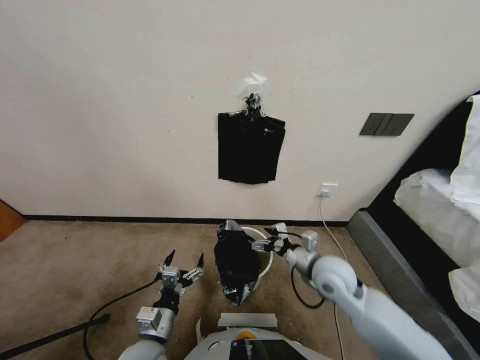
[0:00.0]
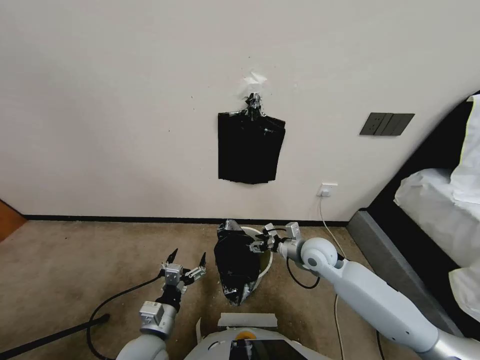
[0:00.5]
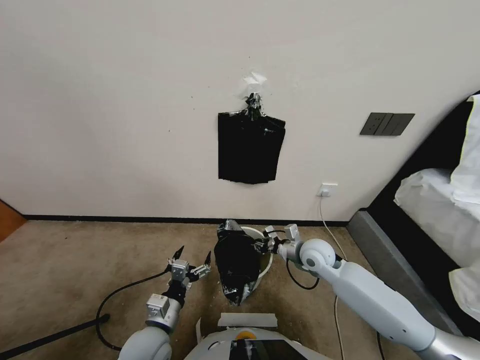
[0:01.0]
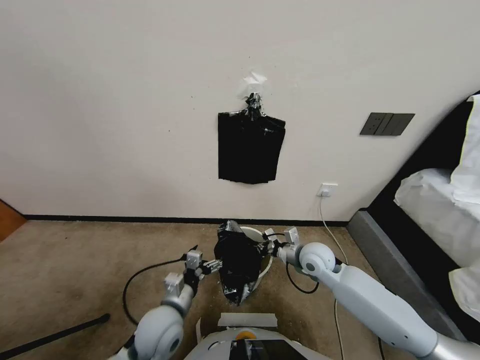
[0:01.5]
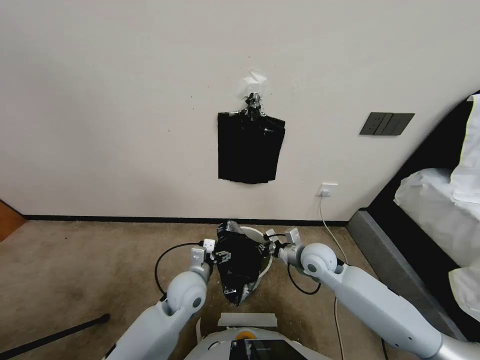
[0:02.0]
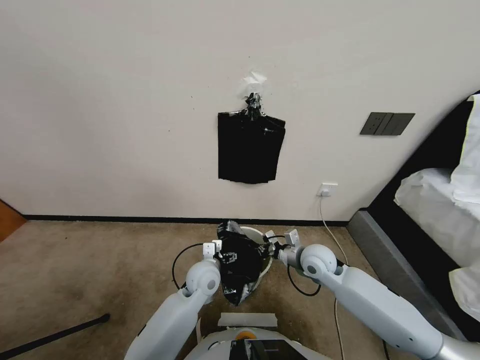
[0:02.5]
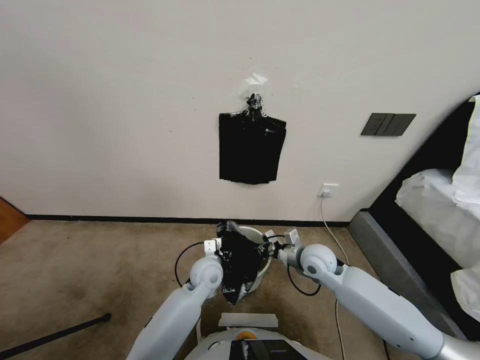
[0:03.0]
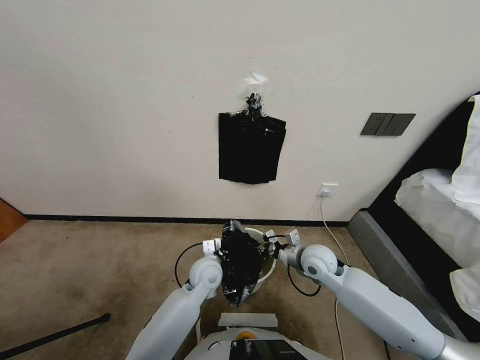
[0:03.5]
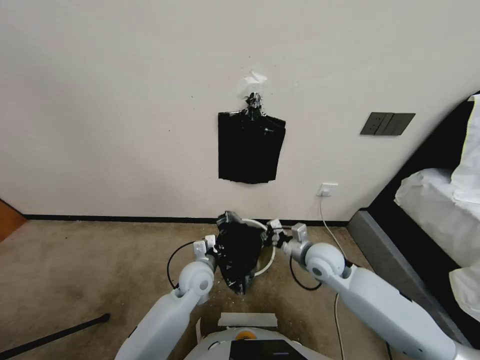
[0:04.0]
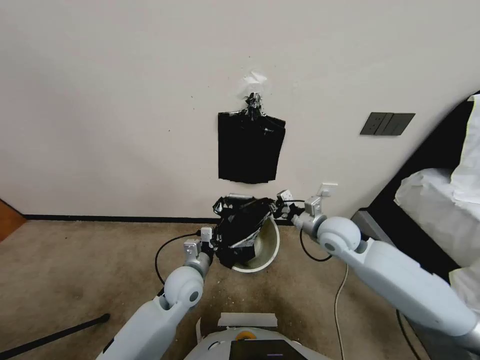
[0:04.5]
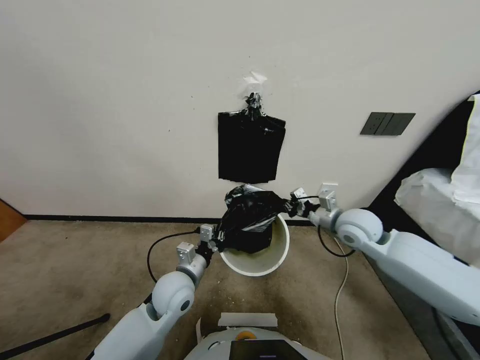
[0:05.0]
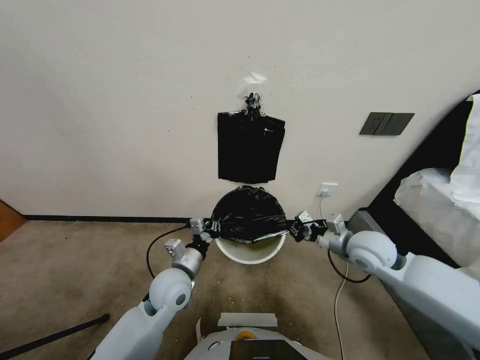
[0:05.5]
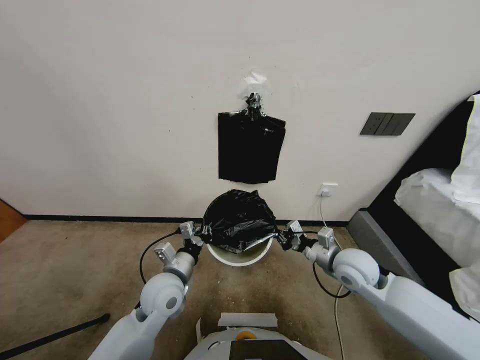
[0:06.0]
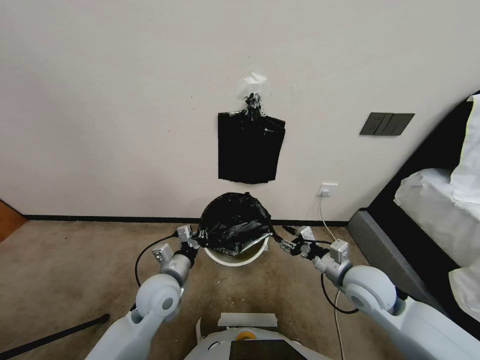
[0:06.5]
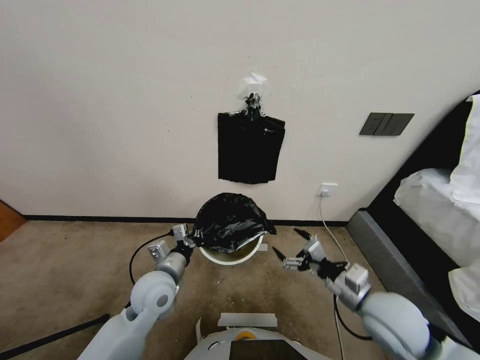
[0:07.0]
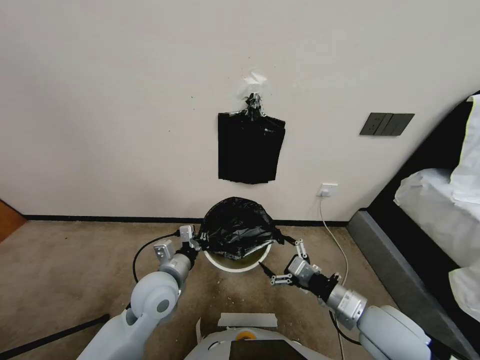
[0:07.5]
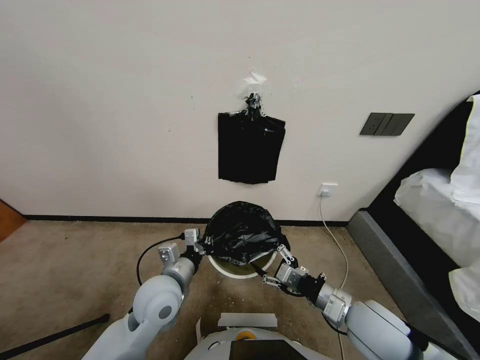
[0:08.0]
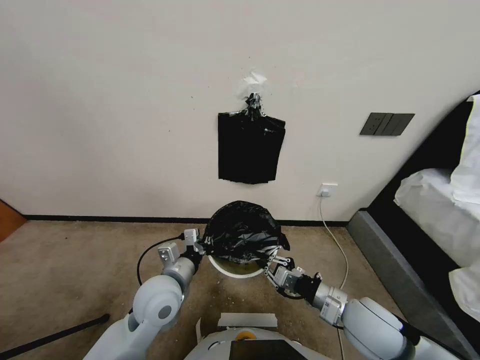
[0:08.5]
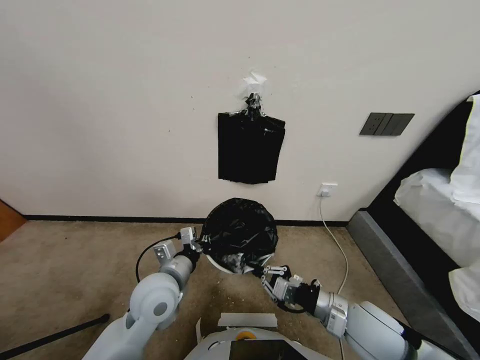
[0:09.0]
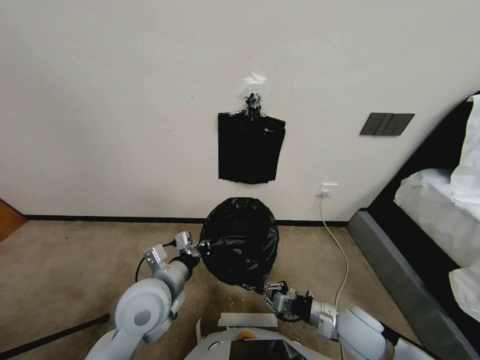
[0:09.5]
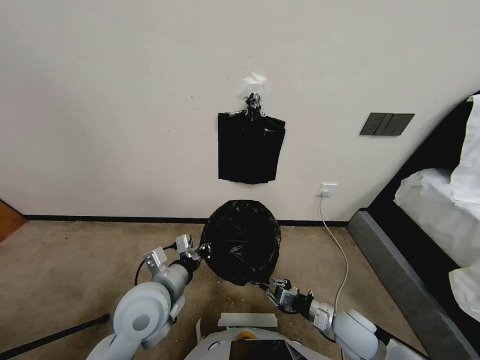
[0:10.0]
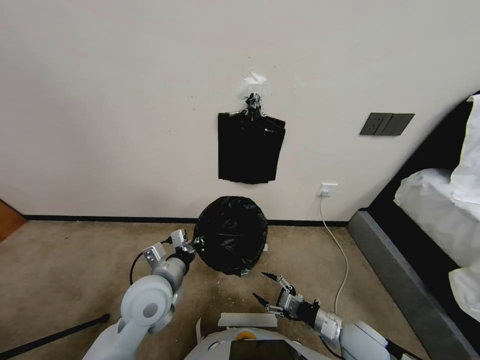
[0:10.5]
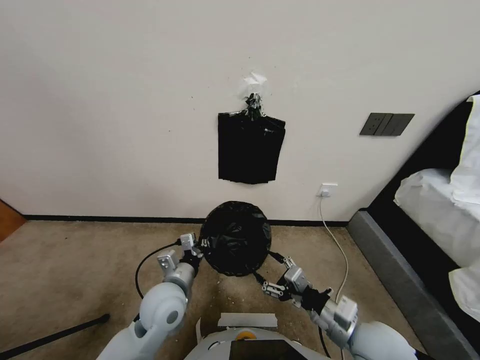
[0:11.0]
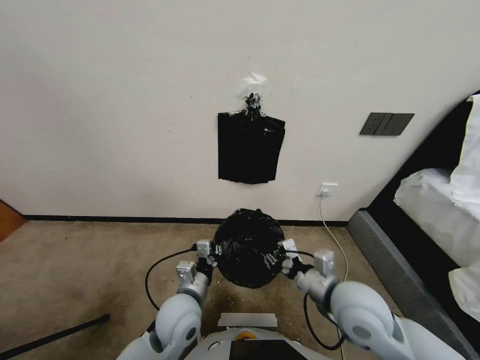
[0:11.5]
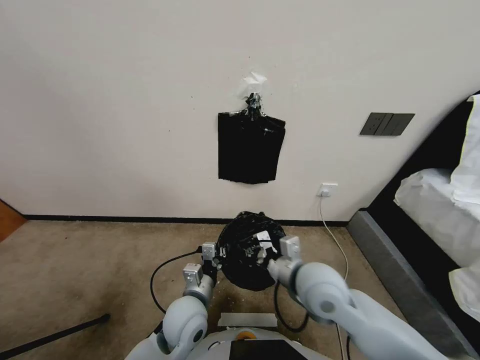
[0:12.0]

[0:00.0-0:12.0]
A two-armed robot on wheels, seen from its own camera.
Task of the whole recording: Place a trash bag onto the trash bin.
0:00.0 to 0:02.0: The left gripper heads forward and to the right, covering approximately 20 cm. Meanwhile the right gripper changes place by roughly 5 cm, and closes.
0:02.0 to 0:04.0: The left gripper closes up.
0:04.0 to 0:06.0: The left gripper heads to the left, covering some 5 cm; the right gripper heads to the right and backward, covering roughly 5 cm.
0:06.0 to 0:08.0: The right gripper heads backward, covering approximately 10 cm, and opens its fingers.
0:08.0 to 0:10.0: The right gripper shifts approximately 10 cm downward.
0:10.0 to 0:12.0: The left gripper shifts roughly 10 cm downward and to the right, while the right gripper is displaced upward, to the left and forward by about 25 cm, and opens and closes again.

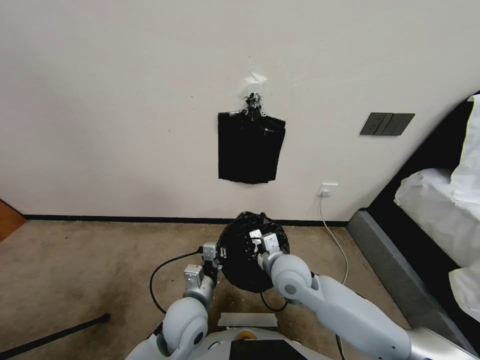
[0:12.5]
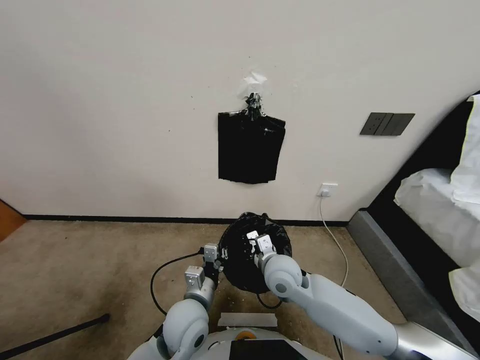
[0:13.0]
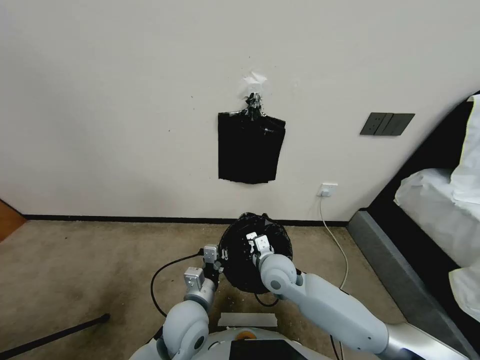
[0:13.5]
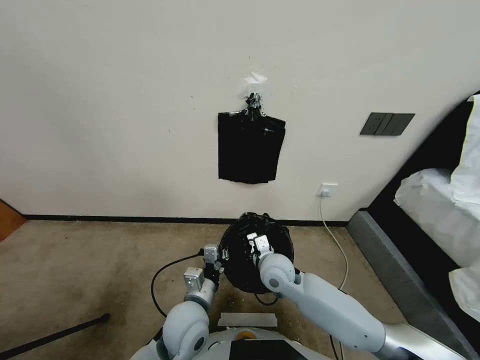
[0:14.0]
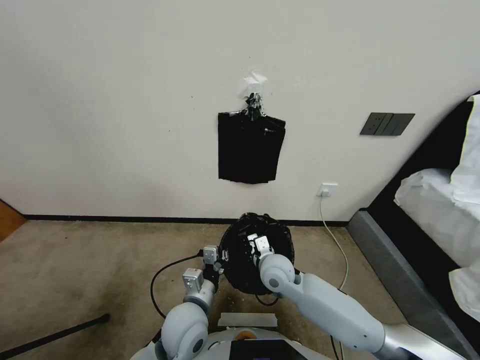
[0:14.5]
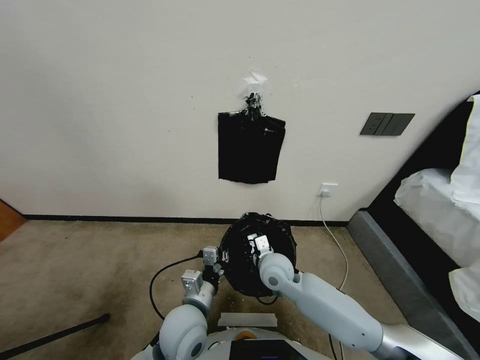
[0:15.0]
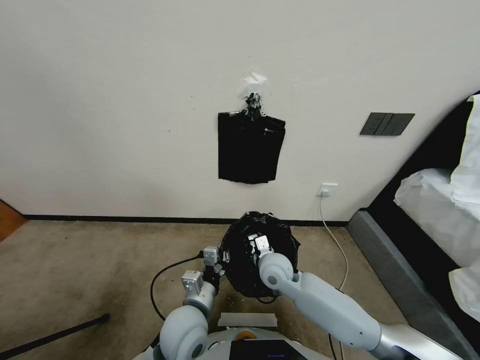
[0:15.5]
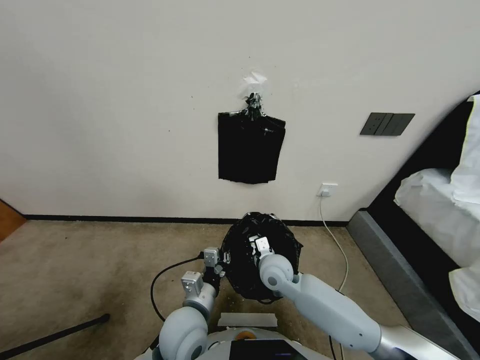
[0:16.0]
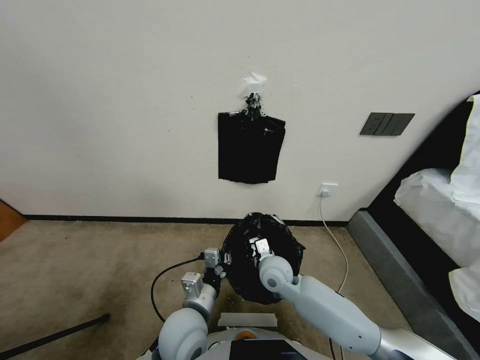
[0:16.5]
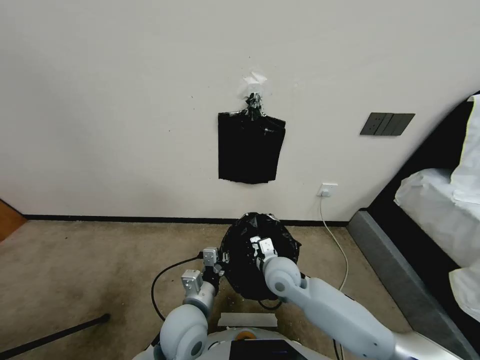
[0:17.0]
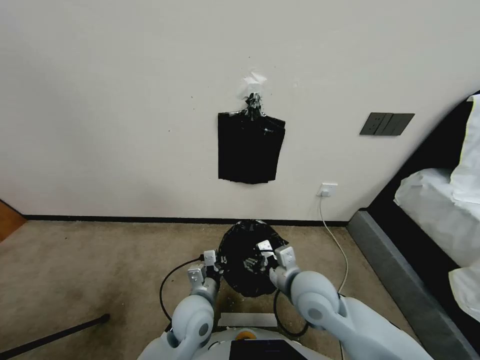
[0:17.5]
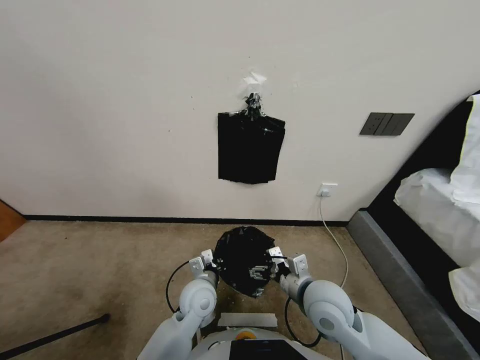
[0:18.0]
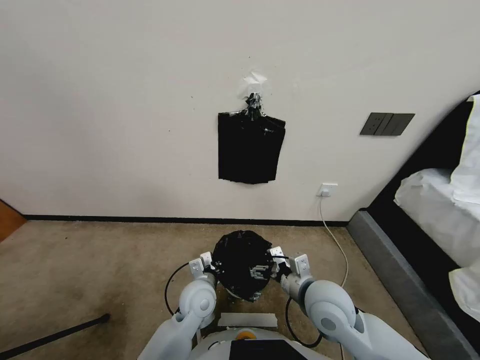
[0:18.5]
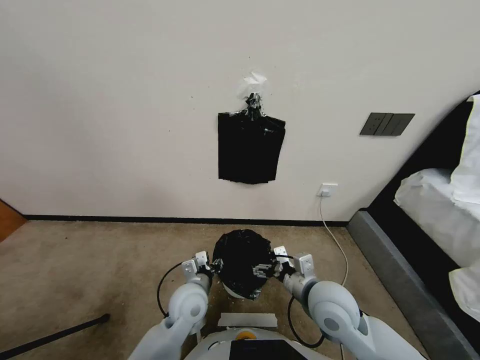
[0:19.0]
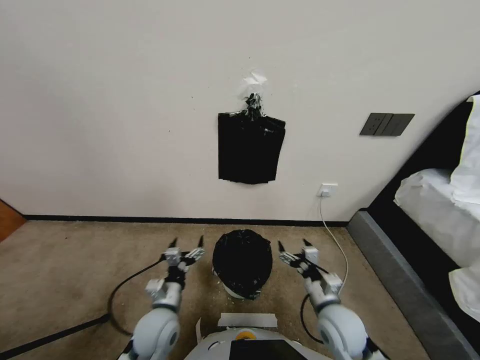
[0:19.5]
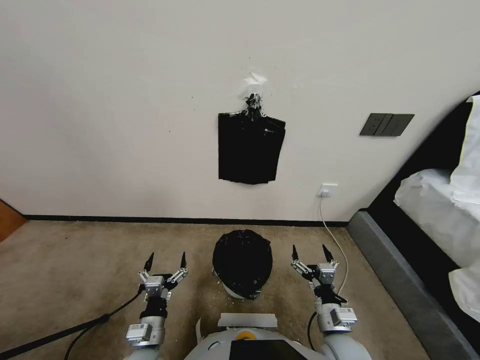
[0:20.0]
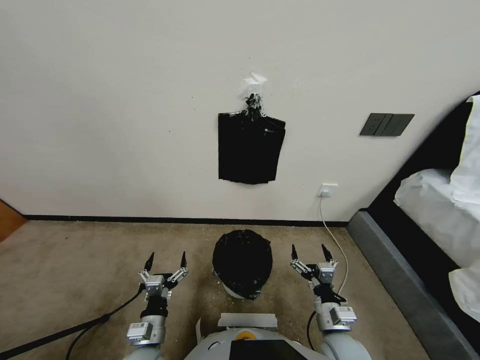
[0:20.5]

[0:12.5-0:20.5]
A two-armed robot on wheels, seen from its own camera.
Task of the whole recording: Place a trash bag onto the trash bin.
0:12.5 to 0:14.5: The right gripper ends up roughly 5 cm from where it was.
0:14.5 to 0:16.5: The grippers move only a little.
0:16.5 to 0:18.5: The left gripper travels forward and downward by roughly 10 cm; the right gripper heads backward, to the right and upward, covering roughly 15 cm, and opens.
0:18.5 to 0:20.5: The right gripper is displaced downward and backward by about 15 cm; the left gripper is displaced backward and to the left by about 20 cm, and opens up.
